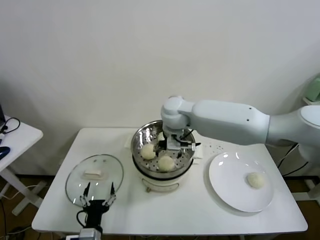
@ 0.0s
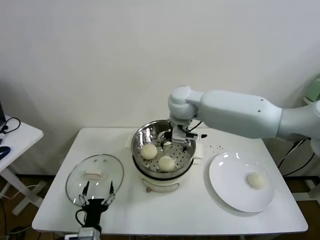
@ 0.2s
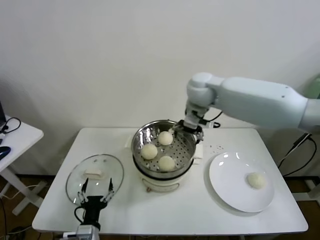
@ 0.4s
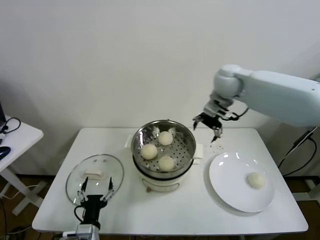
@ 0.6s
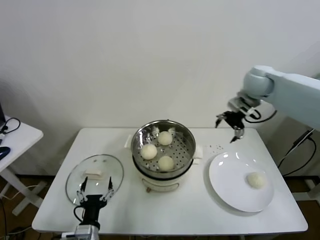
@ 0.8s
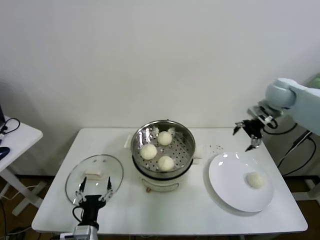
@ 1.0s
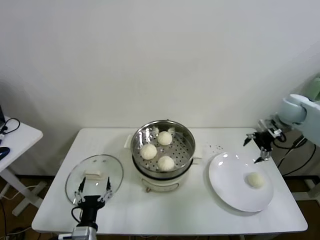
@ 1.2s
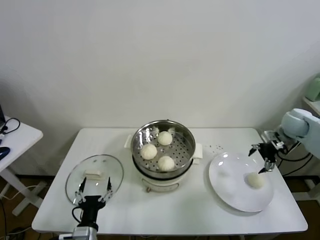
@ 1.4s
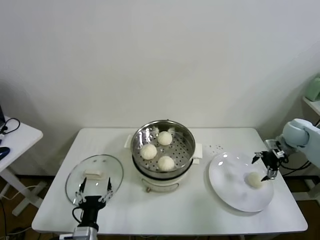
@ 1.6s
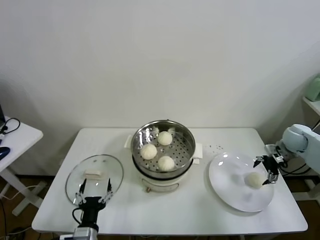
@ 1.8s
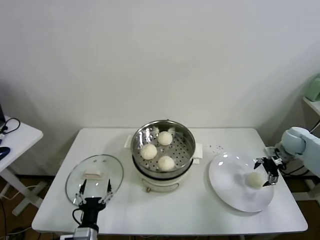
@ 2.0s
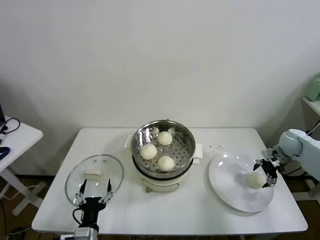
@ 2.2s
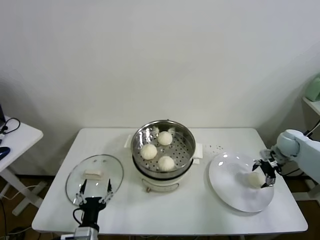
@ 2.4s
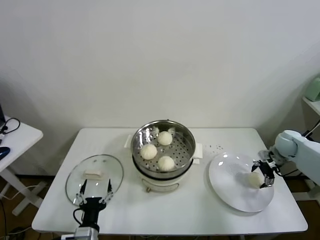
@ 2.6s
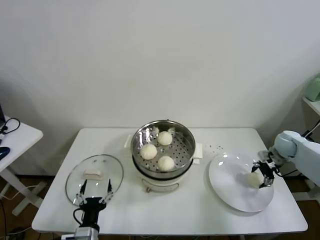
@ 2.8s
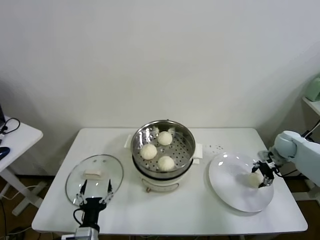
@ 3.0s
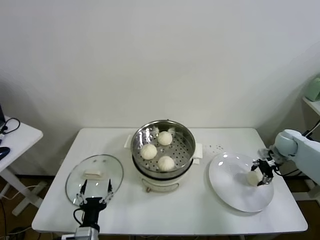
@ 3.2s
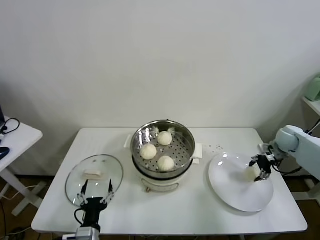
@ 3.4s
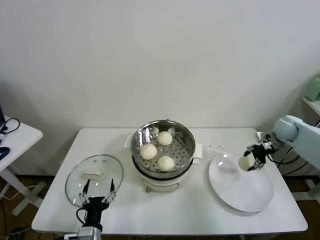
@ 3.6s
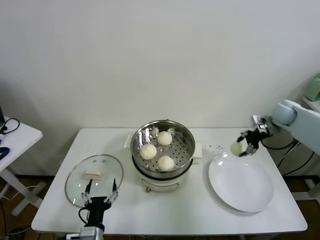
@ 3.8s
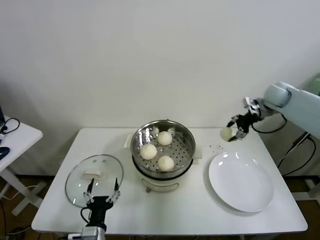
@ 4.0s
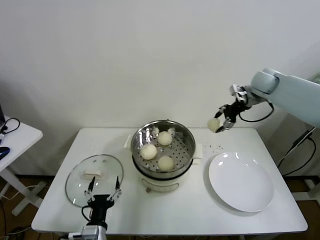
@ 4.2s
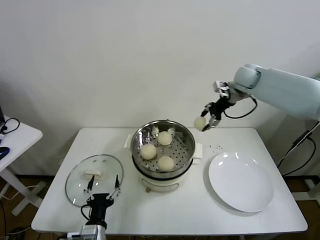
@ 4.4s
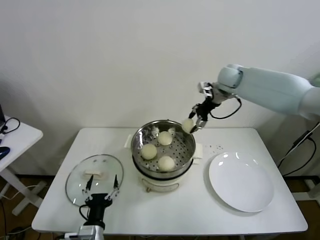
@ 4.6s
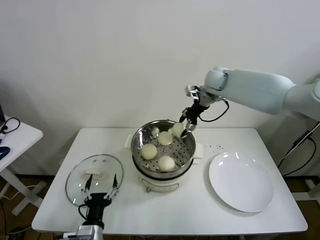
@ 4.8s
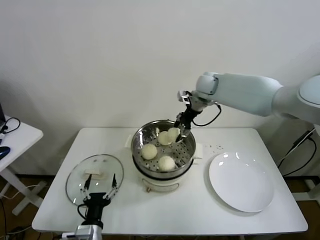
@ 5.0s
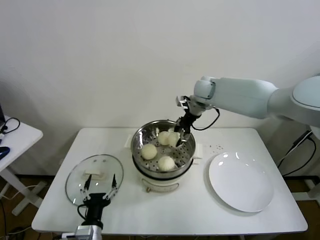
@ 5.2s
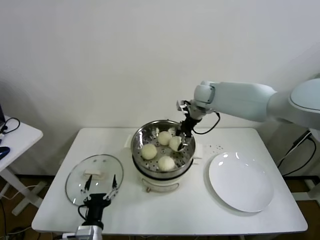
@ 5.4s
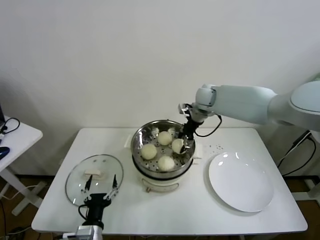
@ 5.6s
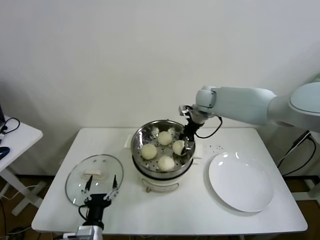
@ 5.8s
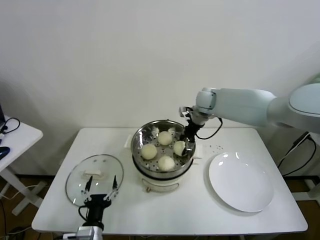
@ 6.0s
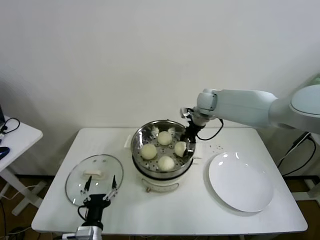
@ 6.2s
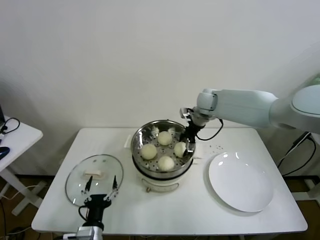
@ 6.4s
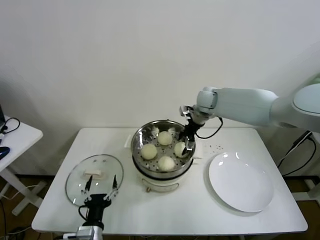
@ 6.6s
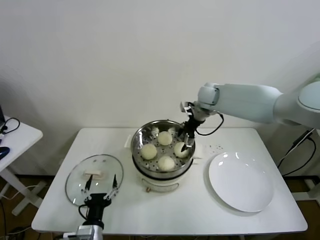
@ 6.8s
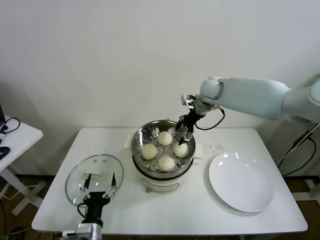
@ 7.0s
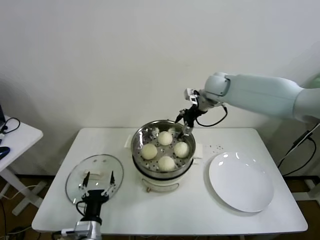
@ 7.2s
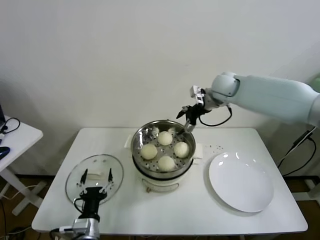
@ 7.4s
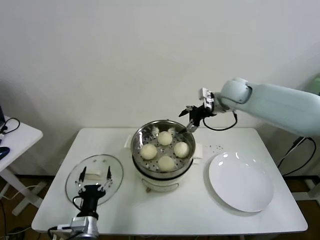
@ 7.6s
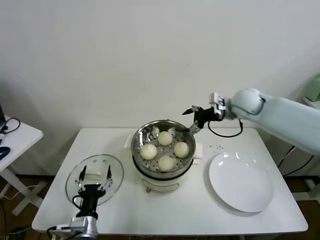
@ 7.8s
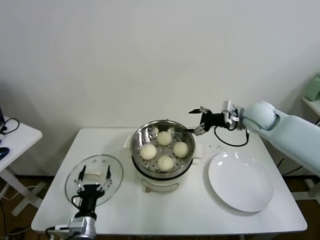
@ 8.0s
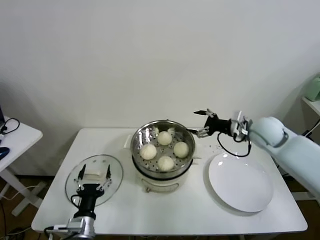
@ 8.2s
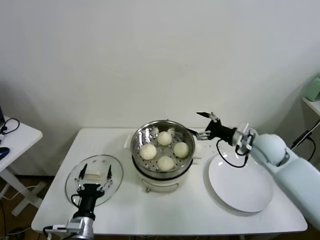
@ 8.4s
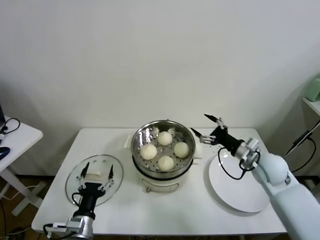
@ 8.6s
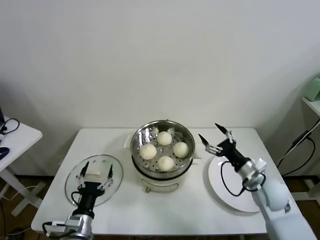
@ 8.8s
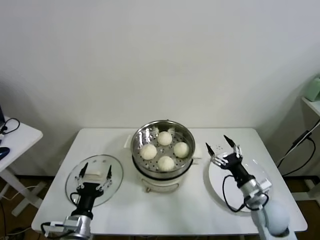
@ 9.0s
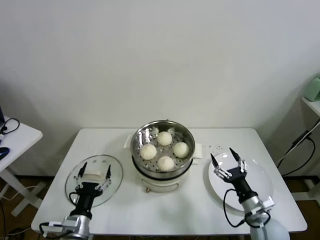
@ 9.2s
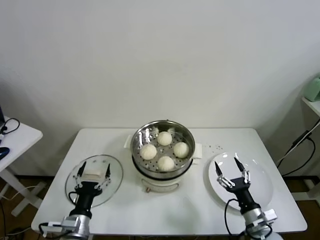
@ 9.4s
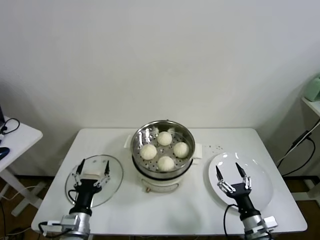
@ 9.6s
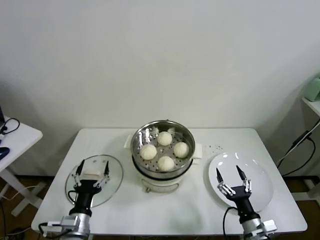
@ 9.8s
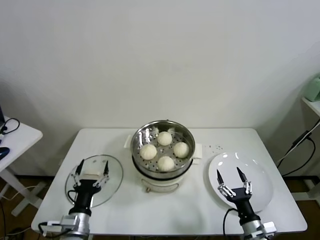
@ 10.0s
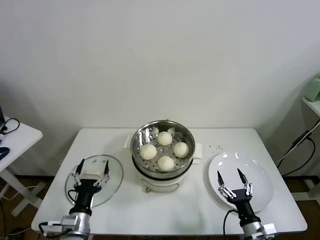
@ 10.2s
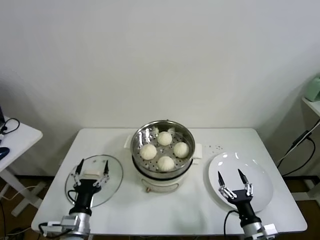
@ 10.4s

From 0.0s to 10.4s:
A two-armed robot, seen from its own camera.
Task of the whole recording: take steamed baozi put them in steamer.
Step, from 0.0s to 3.0s: Grasp the baozi in the plate with right gripper.
Step, from 3.2s to 6.6s: Place the baozi on the steamer with right gripper.
From 0.0s to 1.4s: The right gripper is displaced to the right by approximately 40 cm.
From 1.4s to 3.0s: The right gripper shifts approximately 10 cm downward, and closes.
From 3.0s to 4.4s: The right gripper moves upward, to the left and forward, approximately 30 cm.
From 4.4s to 6.0s: The right gripper shifts approximately 15 cm to the left and downward.
From 6.0s to 7.4s: The right gripper goes roughly 5 cm upward, and opens up.
From 7.4s to 9.0s: The right gripper shifts roughly 40 cm backward and downward.
From 9.0s to 10.4s: The right gripper shifts some 15 cm backward and downward.
